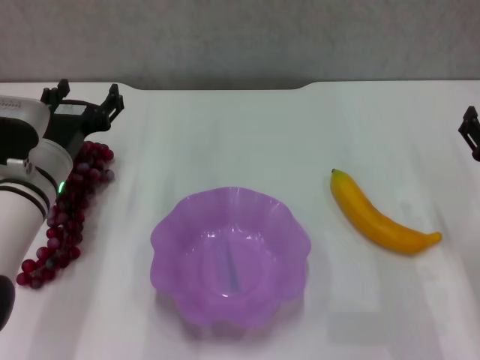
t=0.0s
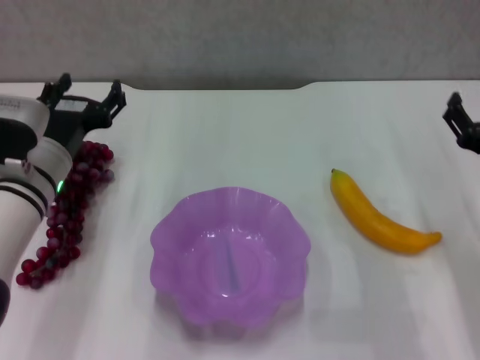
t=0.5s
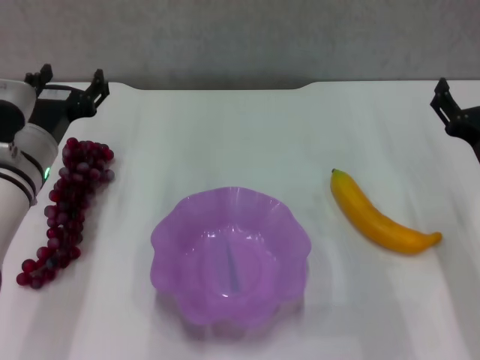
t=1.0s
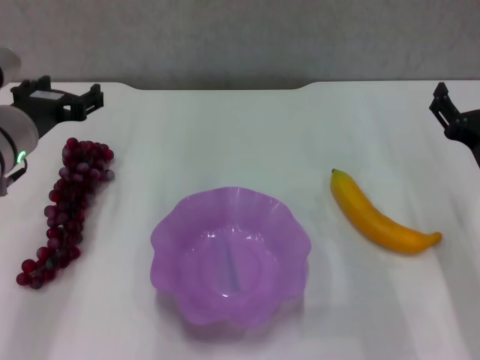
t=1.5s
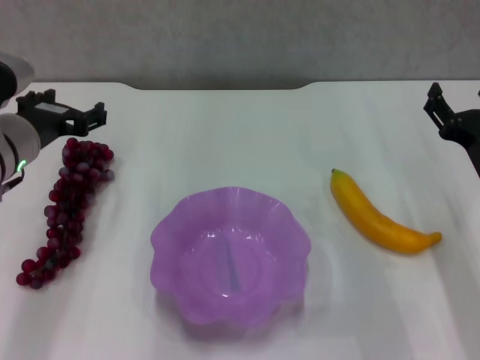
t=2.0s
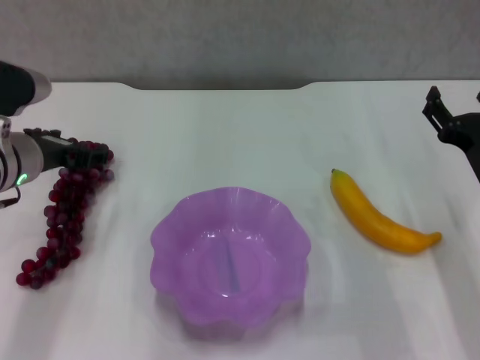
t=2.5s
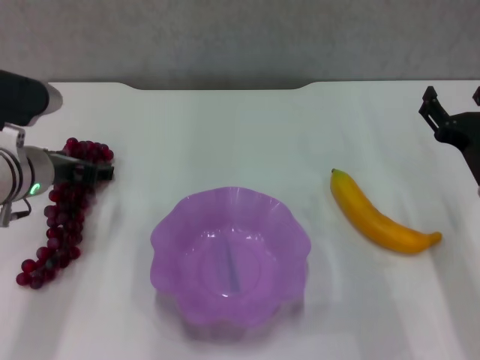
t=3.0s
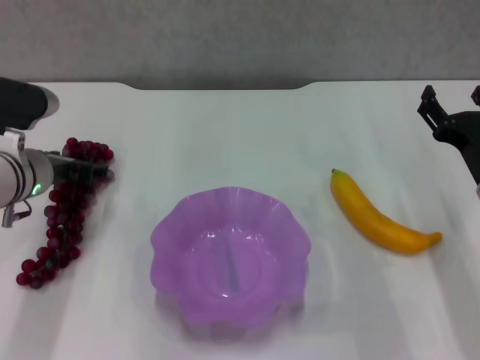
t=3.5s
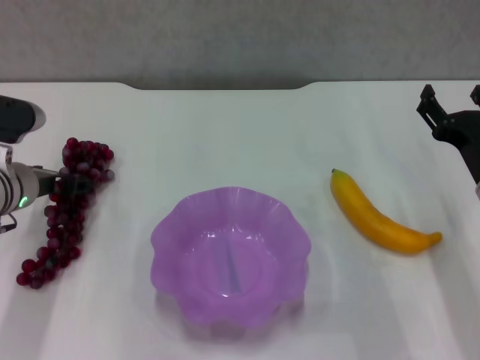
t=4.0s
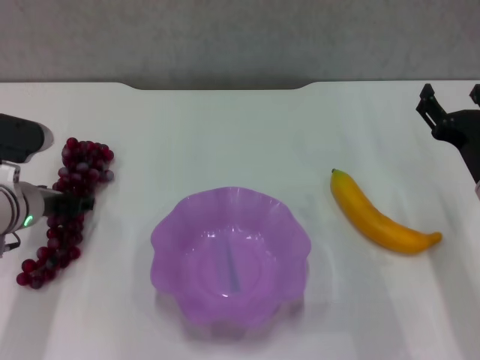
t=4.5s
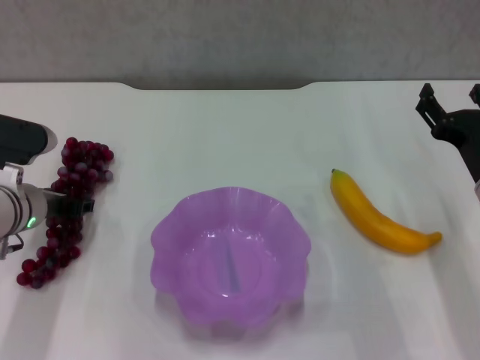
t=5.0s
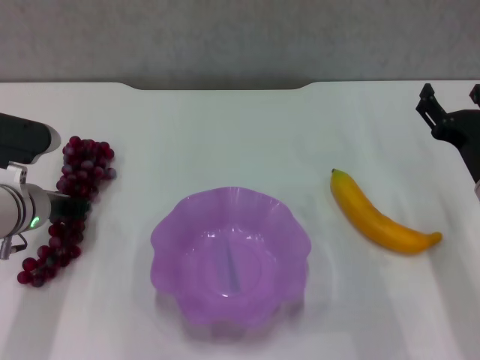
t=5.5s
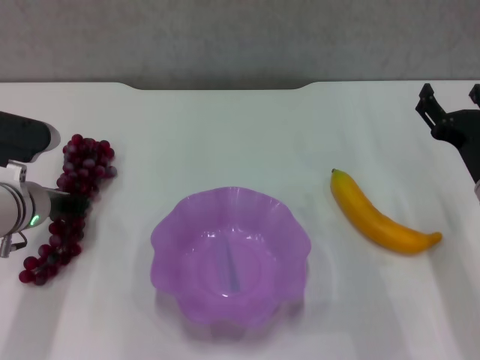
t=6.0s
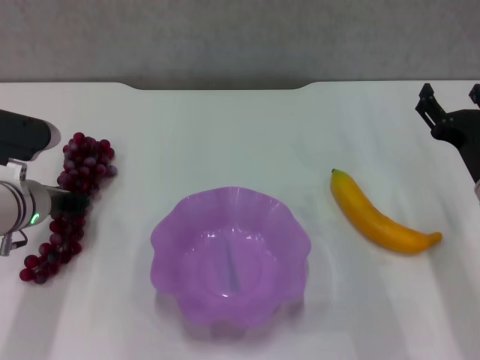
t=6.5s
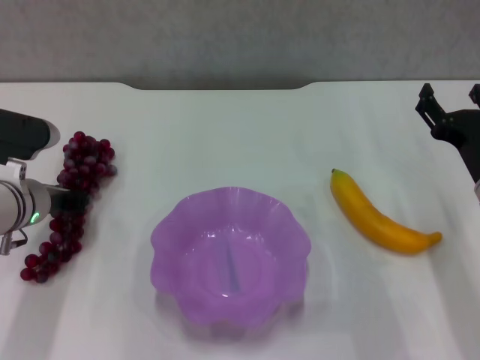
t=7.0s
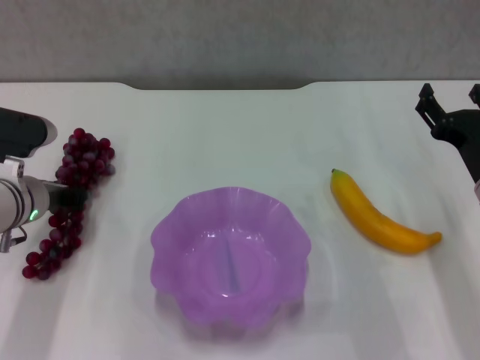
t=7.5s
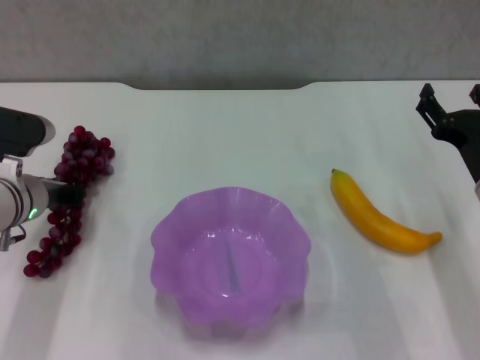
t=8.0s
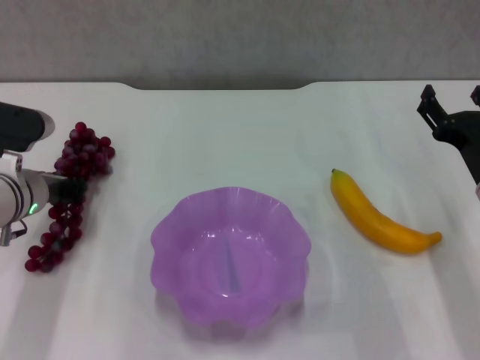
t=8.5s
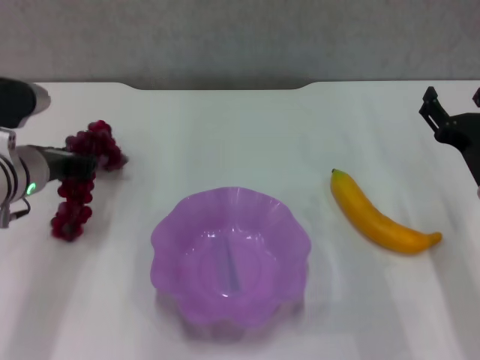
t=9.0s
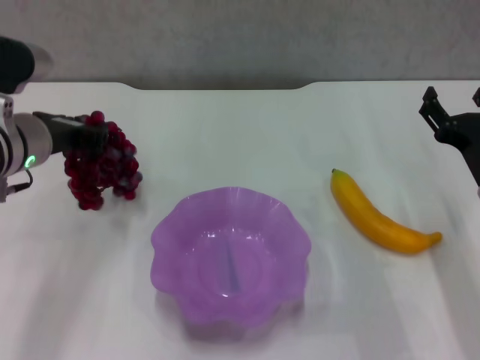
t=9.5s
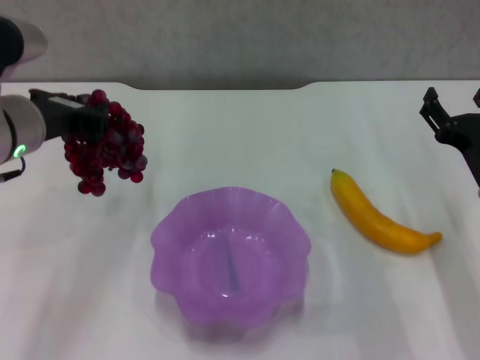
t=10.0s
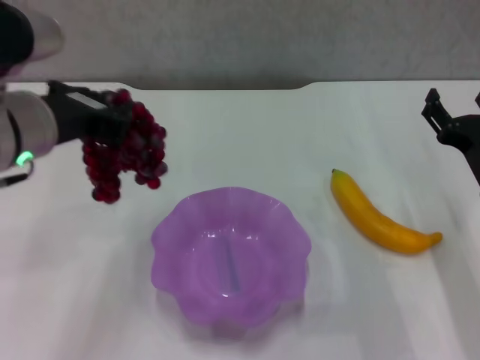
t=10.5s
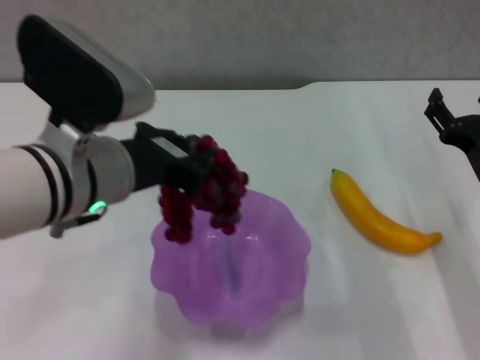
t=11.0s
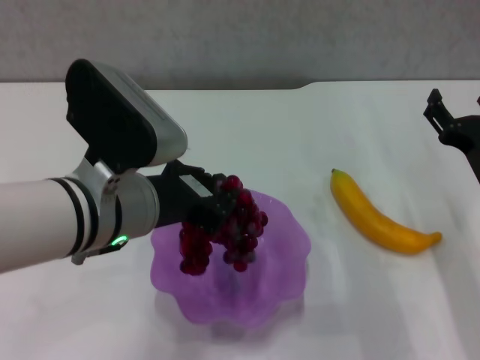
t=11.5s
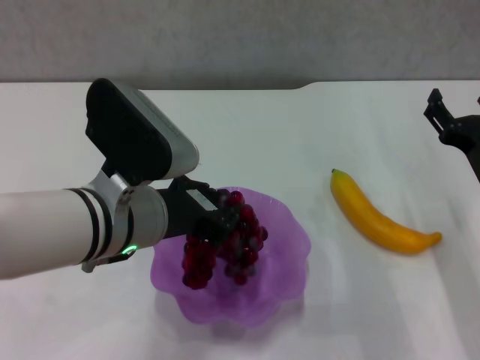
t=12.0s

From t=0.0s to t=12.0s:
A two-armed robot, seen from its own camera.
Step, from t=0.0s to t=7.5s: Grasp the grape with left gripper.
From t=0.0s to t=2.0s: The left gripper travels upward by some 5 cm.
From t=2.0s to t=4.0s: The left gripper goes some 5 cm downward.
From t=4.0s to t=6.0s: The left gripper closes its fingers.
From t=6.0s to t=8.0s: Neither gripper changes place.
From t=8.0s to t=10.0s: The left gripper travels upward by roughly 10 cm.
From t=10.0s to t=12.0s: The left gripper is displaced to the right and backward by some 10 cm.

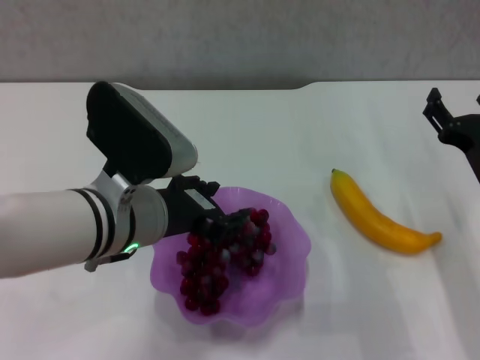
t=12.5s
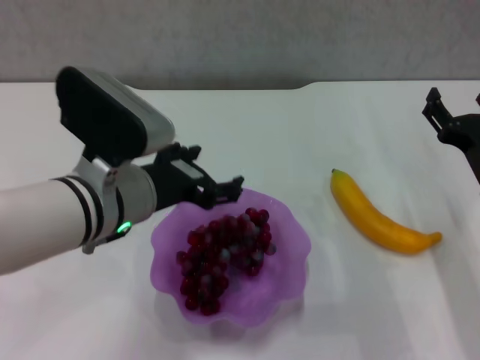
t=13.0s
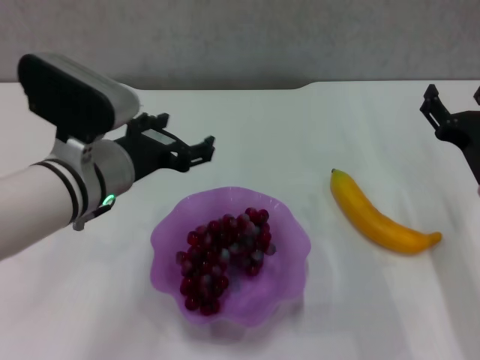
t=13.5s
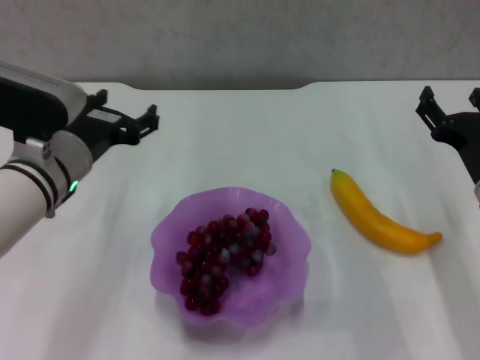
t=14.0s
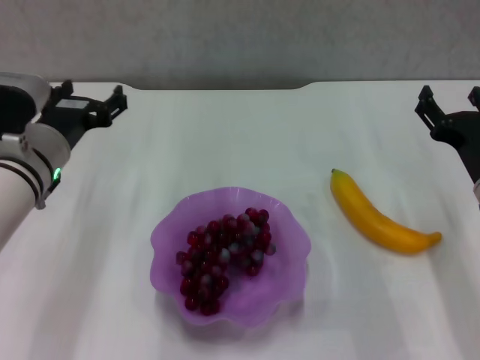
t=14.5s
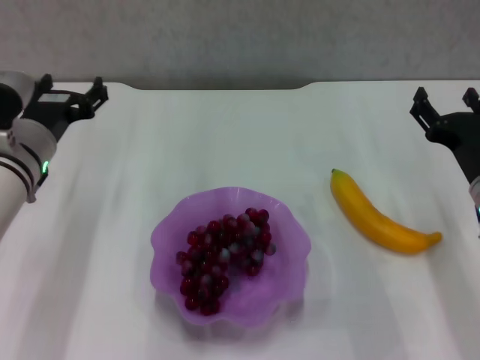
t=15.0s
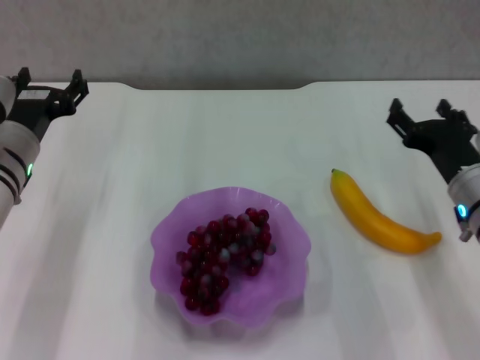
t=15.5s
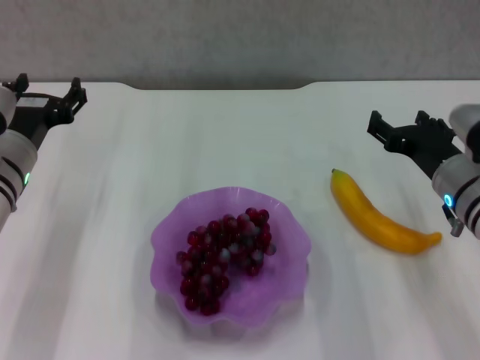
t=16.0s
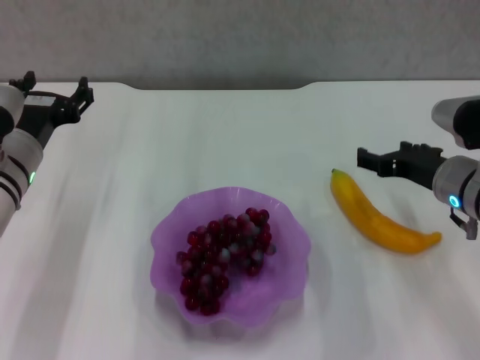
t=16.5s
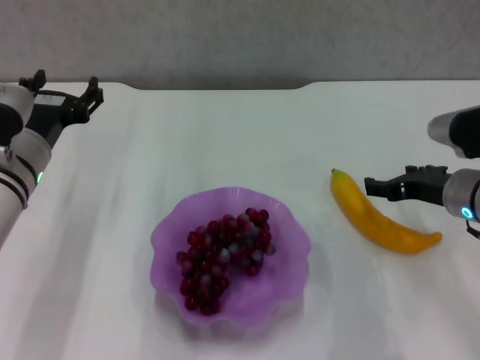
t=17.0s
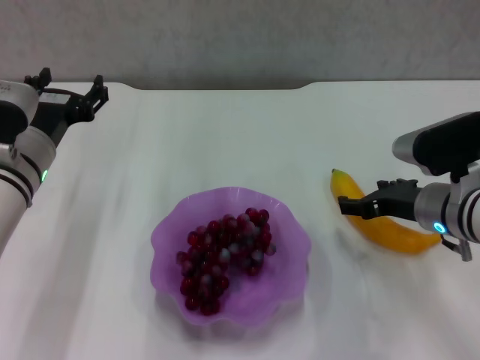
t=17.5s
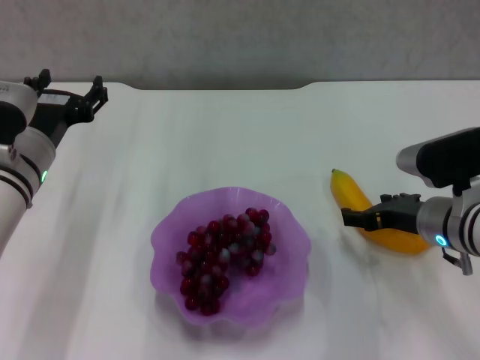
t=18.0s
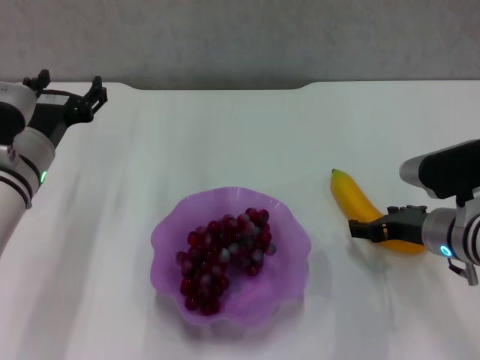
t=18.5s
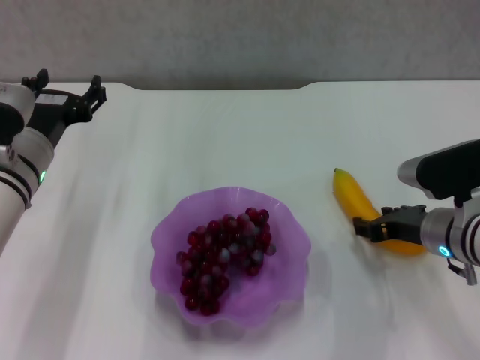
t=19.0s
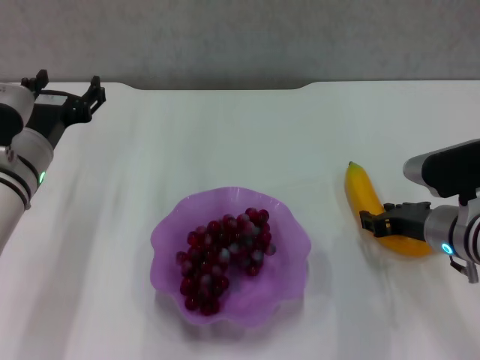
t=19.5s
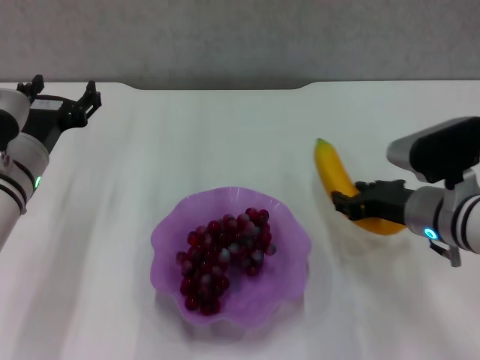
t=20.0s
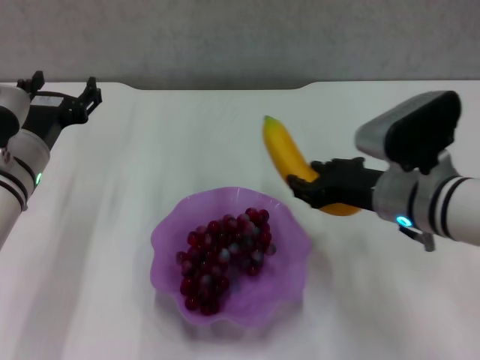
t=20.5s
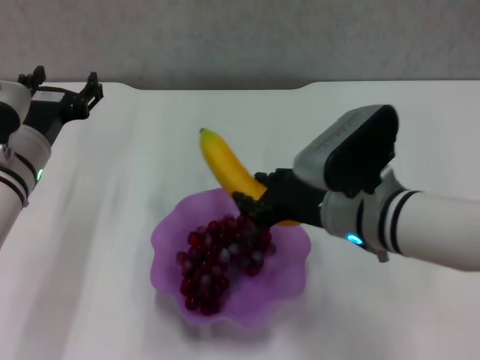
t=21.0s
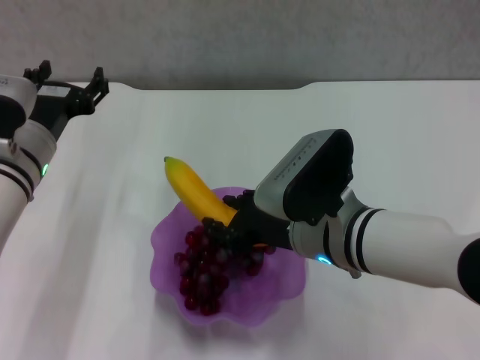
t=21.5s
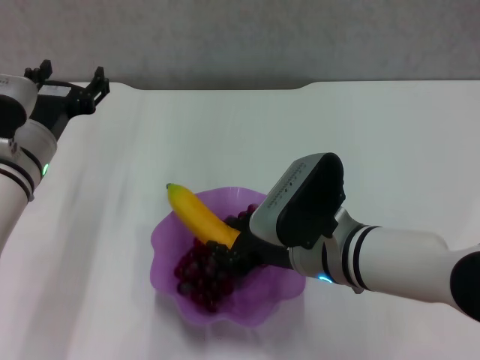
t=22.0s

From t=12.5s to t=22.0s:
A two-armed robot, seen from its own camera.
Step, from t=12.5s to t=19.0s: Grasp the banana with right gripper.
From t=12.5s to t=14.5s: The left gripper moves to the left and forward, some 10 cm, and opens.
From t=16.5s to t=18.0s: The grippers make only small movements.
From t=18.0s to t=20.0s: The right gripper closes its fingers.
From t=20.0s to t=22.0s: The right gripper heads to the left, covering roughly 10 cm.

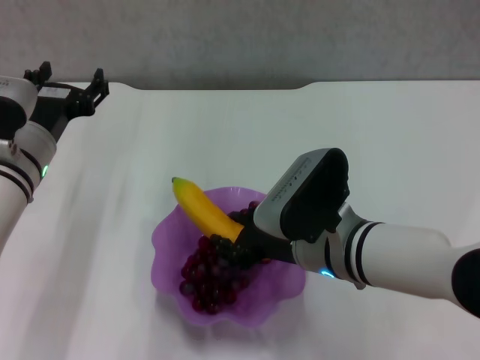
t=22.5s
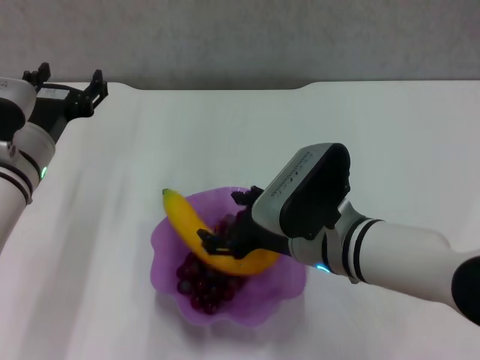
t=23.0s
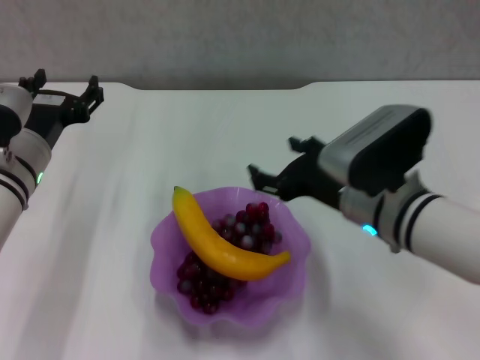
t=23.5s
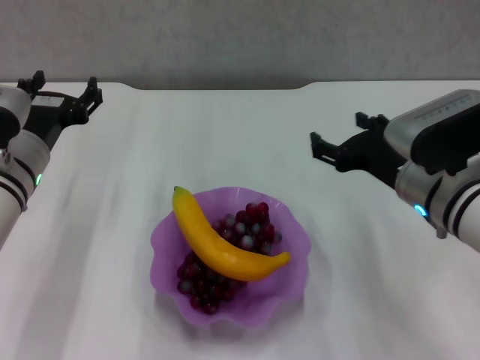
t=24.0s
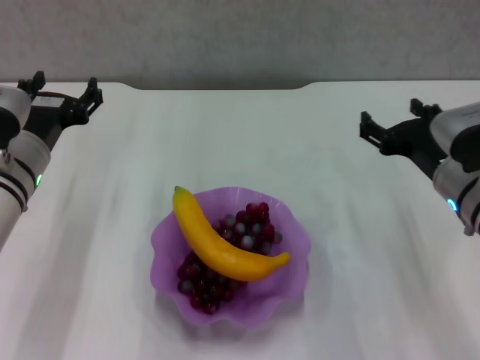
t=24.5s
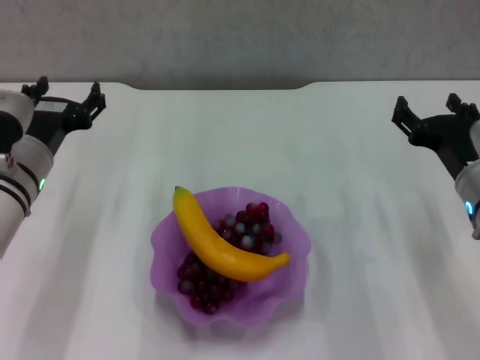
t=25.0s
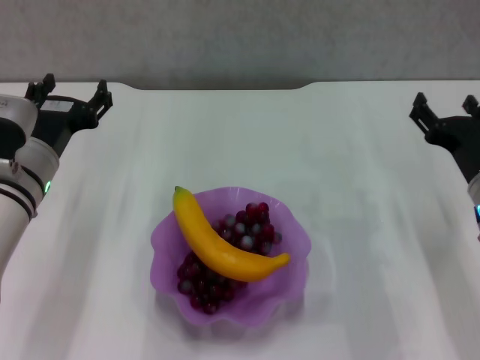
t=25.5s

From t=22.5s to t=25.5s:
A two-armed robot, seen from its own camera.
From t=22.5s to t=24.0s: The right gripper heads to the right, covering approximately 10 cm, and opens its fingers.
From t=24.0s to t=25.5s: The right gripper goes some 5 cm to the right.

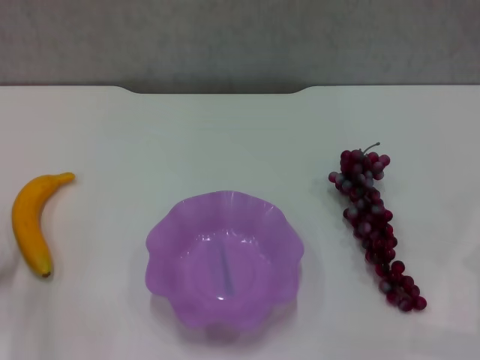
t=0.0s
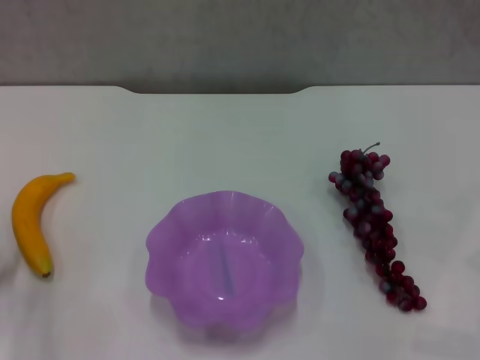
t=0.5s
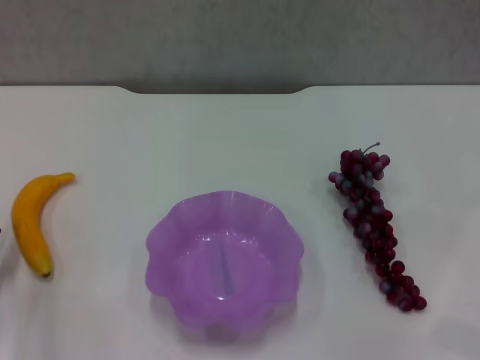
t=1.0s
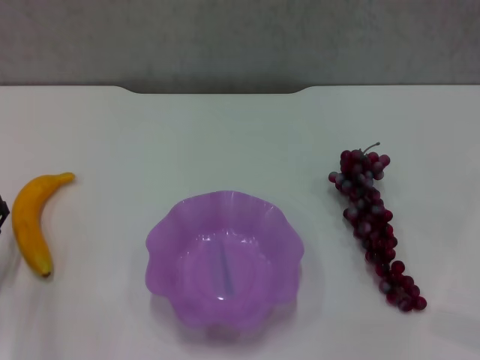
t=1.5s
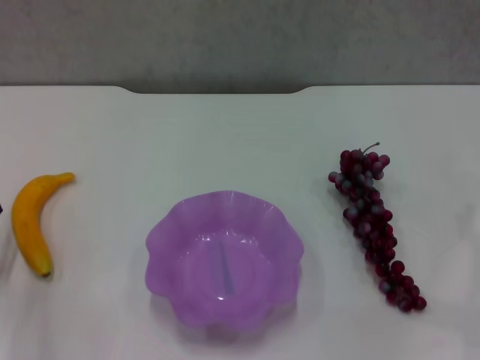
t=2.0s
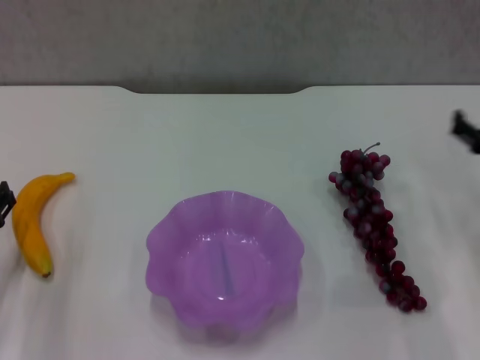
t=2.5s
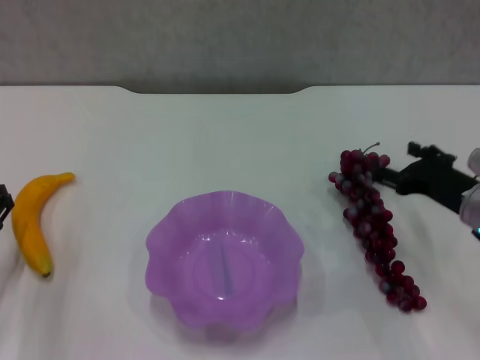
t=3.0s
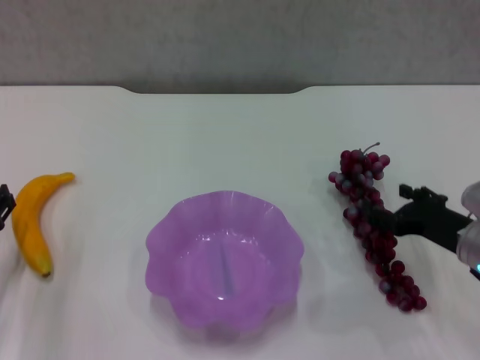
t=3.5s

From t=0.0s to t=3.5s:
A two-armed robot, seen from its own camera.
From t=2.0s to t=3.5s: The right gripper shifts roughly 10 cm to the left.
